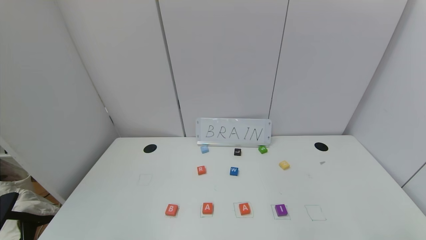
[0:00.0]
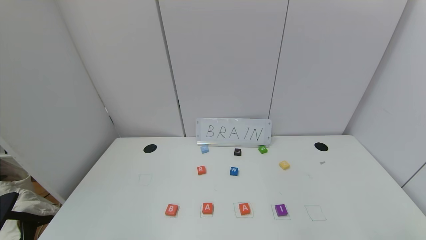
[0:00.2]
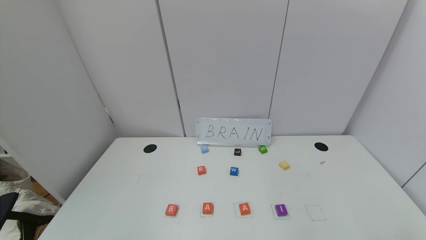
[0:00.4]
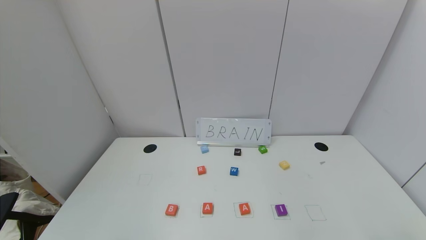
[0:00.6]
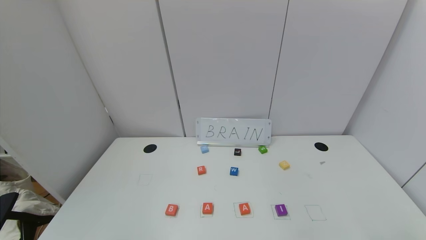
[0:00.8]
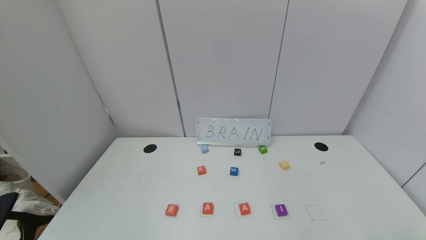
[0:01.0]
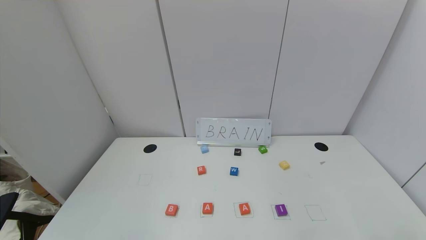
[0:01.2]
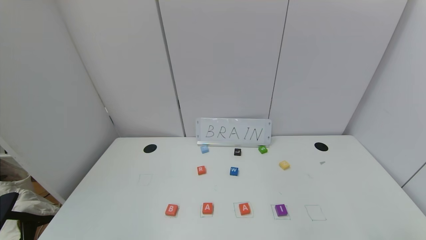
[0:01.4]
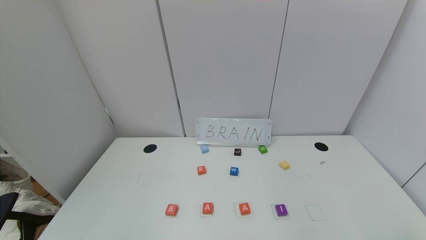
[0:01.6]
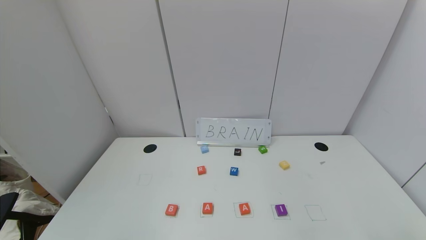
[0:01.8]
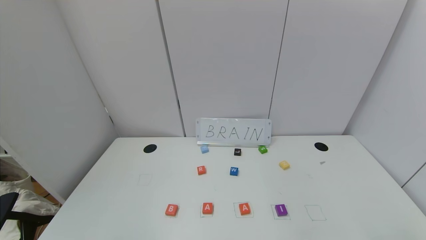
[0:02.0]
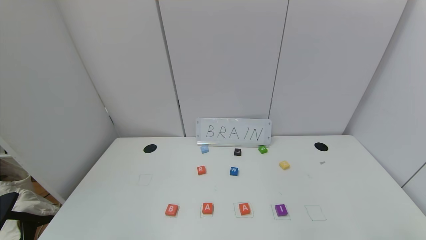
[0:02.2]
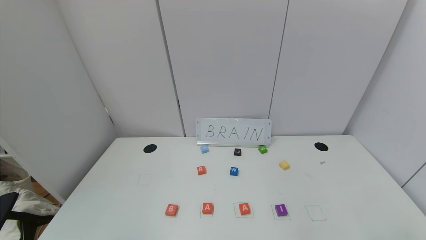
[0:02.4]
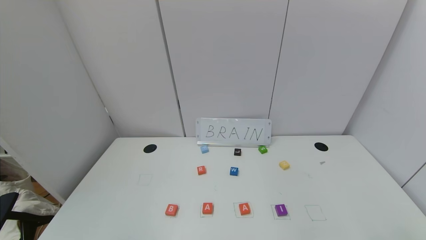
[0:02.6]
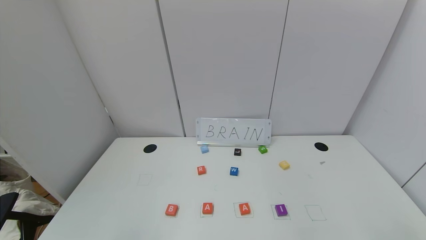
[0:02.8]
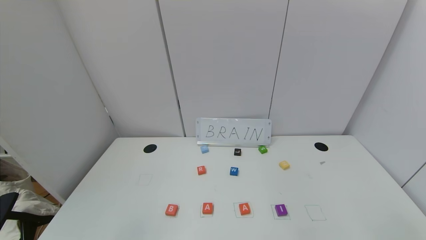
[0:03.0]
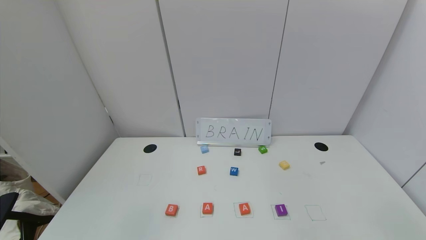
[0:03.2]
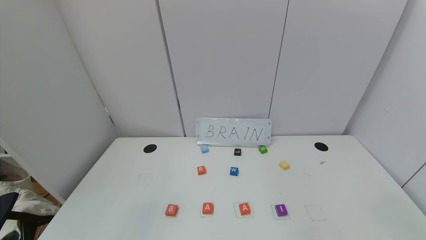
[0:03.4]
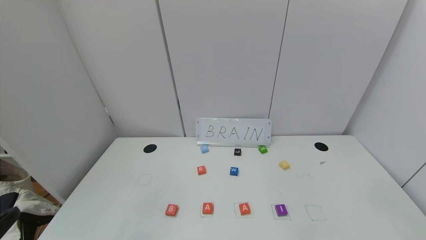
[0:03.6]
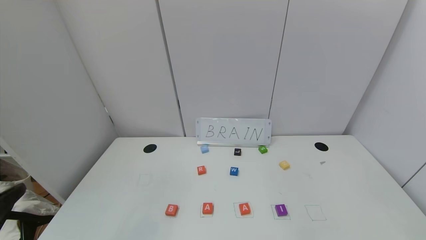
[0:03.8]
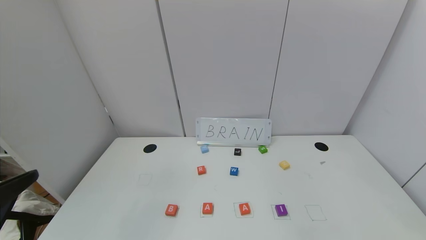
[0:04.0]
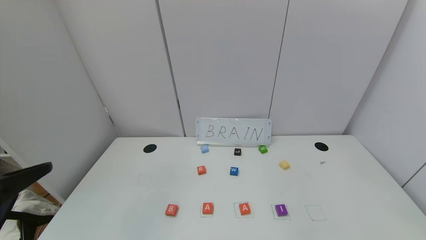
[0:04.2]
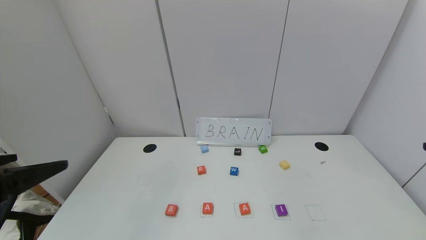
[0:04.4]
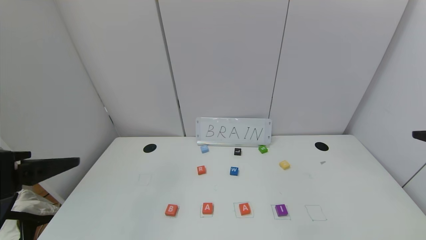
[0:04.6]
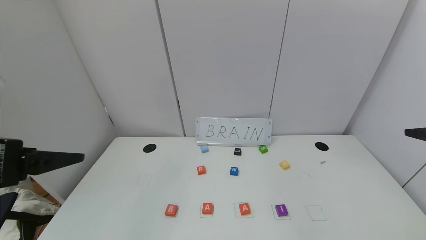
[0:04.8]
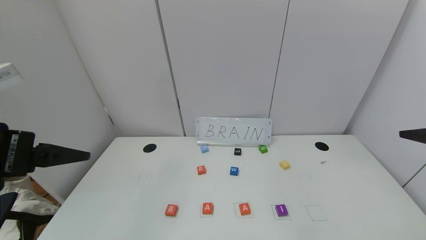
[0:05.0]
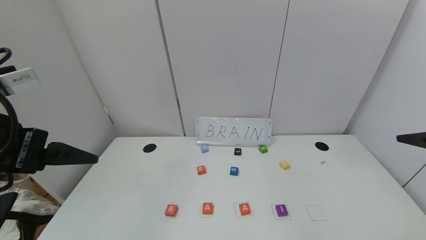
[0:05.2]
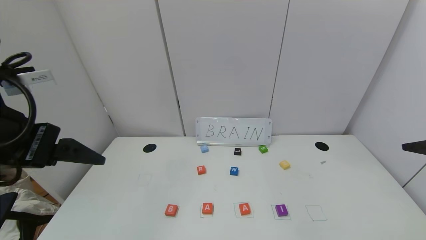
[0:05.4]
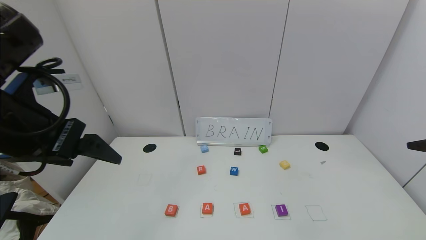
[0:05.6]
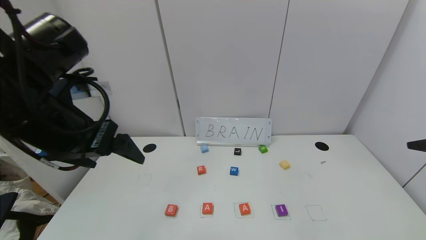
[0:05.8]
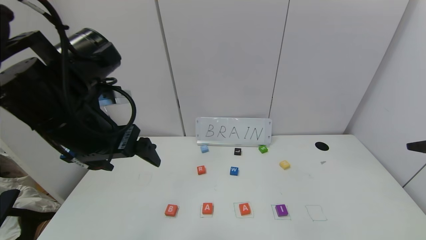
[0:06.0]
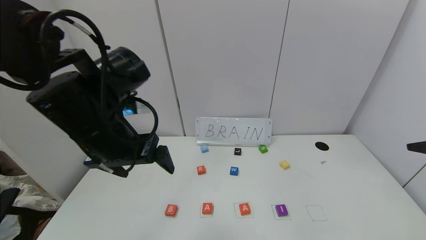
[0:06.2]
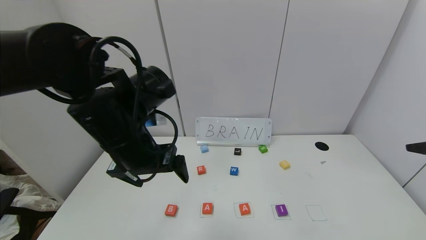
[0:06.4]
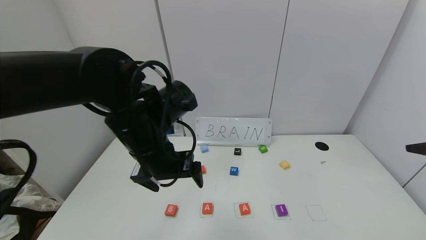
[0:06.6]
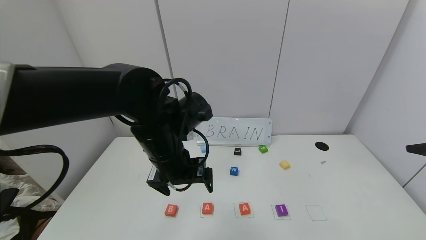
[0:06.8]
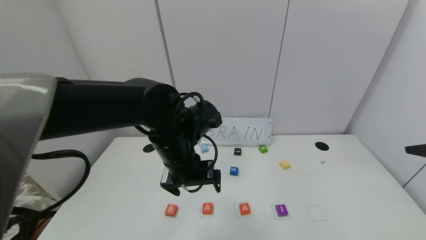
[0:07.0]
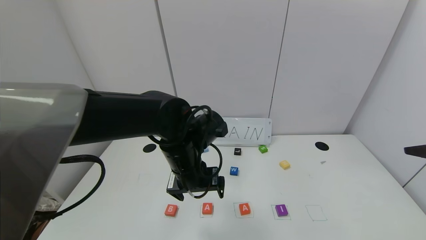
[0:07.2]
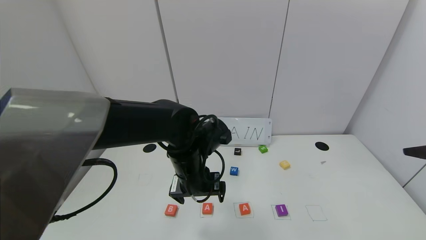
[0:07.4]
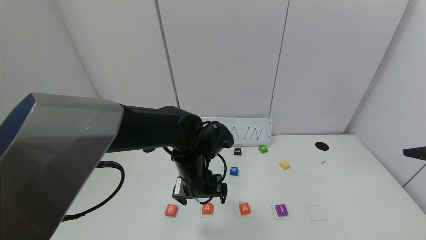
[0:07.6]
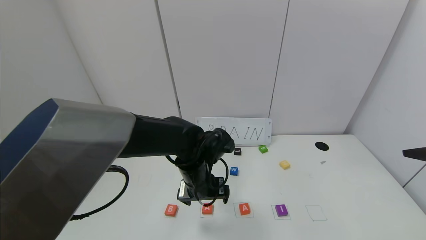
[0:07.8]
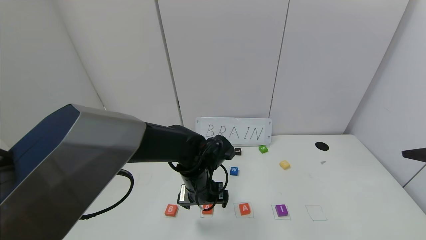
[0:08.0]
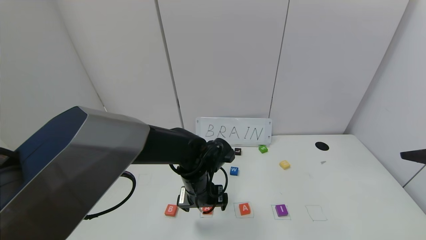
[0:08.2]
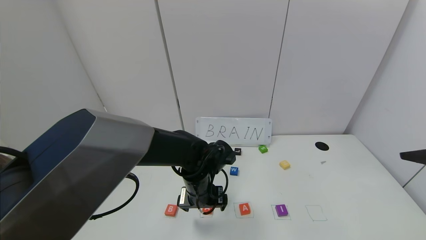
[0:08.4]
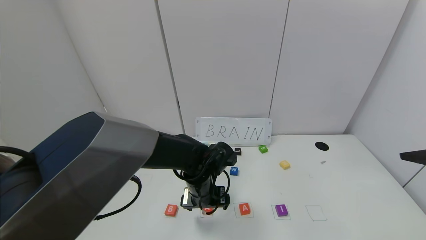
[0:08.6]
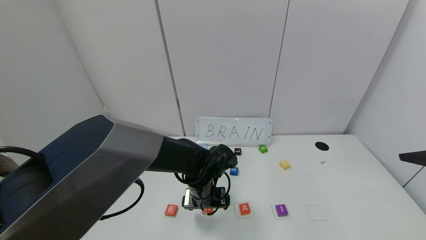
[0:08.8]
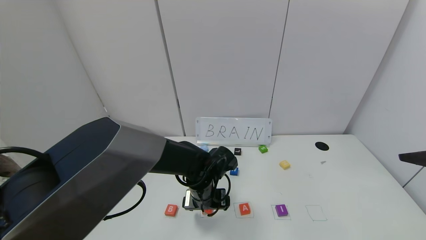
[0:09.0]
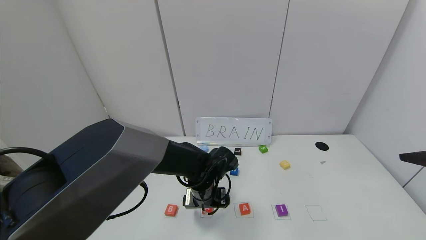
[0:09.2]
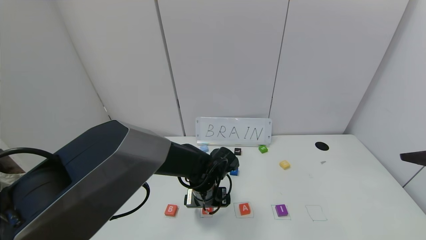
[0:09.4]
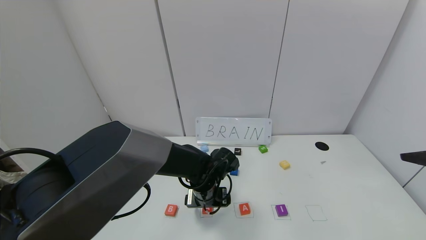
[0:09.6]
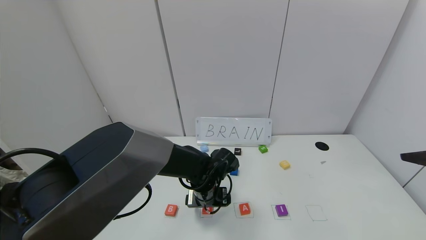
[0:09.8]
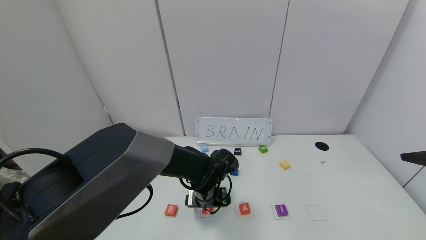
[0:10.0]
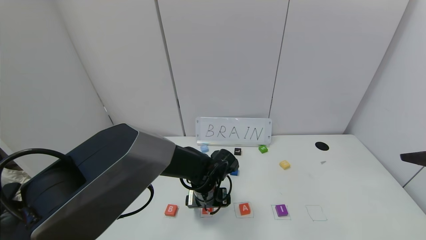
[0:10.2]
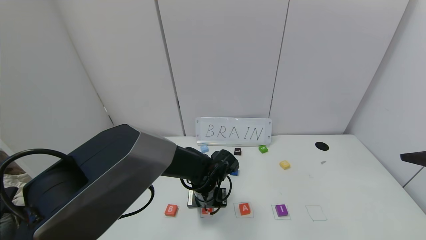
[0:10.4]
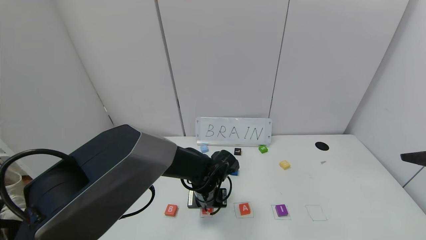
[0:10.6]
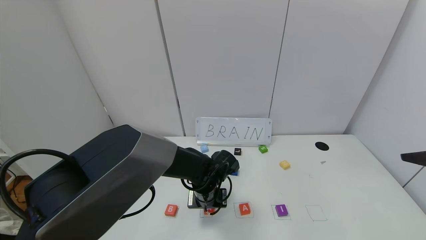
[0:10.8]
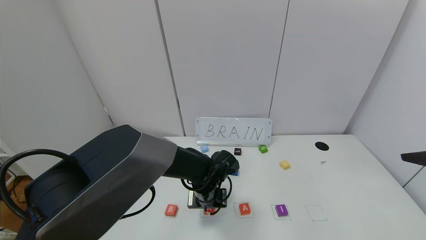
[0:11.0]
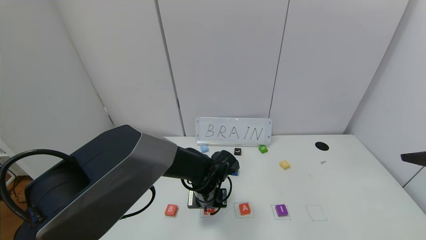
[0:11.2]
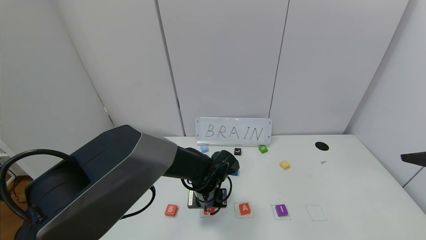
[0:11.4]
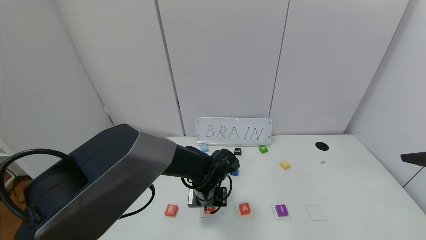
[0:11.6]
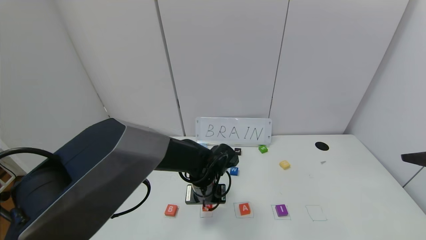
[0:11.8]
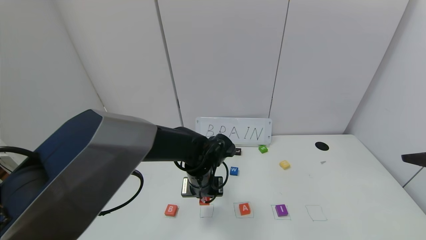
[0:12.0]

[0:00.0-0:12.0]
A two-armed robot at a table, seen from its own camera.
Task of the whole recording: use the gripper to find blocks with the letters b, a, a, and i on the table and arrange them into BAAI, then find r and N and turn the arranged baai into brian.
0:00.0 to 0:01.6: Neither gripper changes place.
0:03.0 to 0:04.4: The left gripper is displaced upward and forward by roughly 20 cm.
0:04.4 to 0:06.0: The left gripper goes about 15 cm forward and to the right.
0:06.0 to 0:07.6: The left gripper is displaced downward, to the right and forward by some 20 cm.
0:07.6 to 0:09.0: The left gripper travels downward by some 10 cm.
0:09.0 to 0:10.4: The left gripper closes.
0:10.4 to 0:12.0: The left gripper closes.

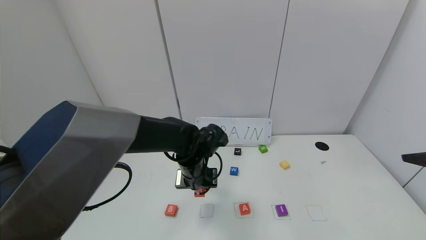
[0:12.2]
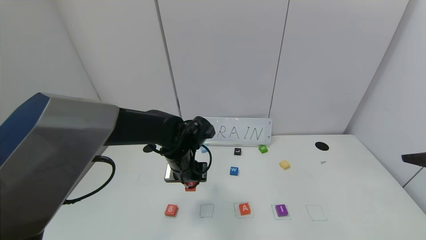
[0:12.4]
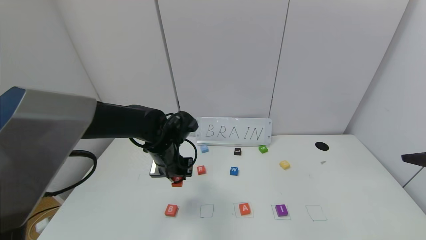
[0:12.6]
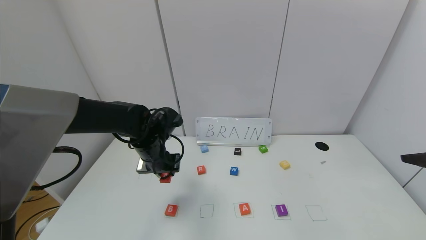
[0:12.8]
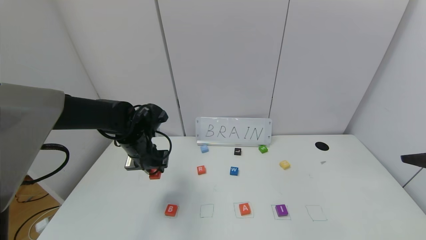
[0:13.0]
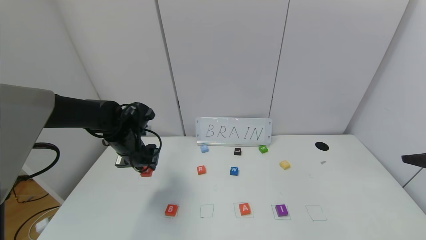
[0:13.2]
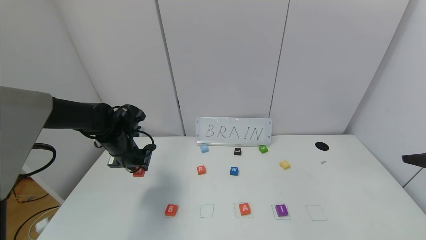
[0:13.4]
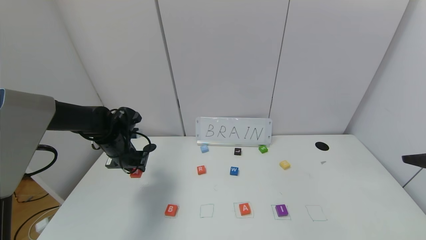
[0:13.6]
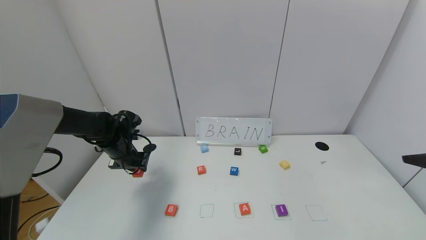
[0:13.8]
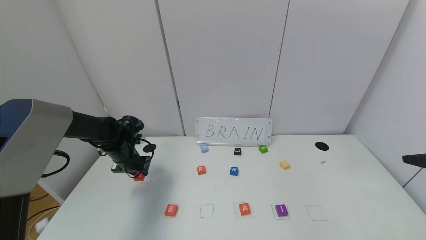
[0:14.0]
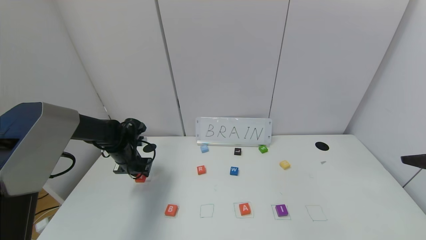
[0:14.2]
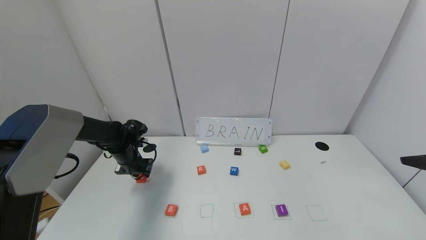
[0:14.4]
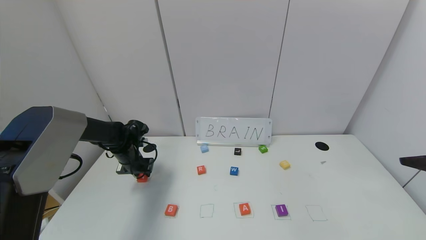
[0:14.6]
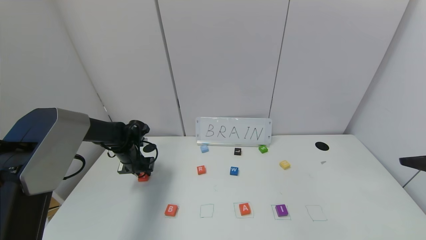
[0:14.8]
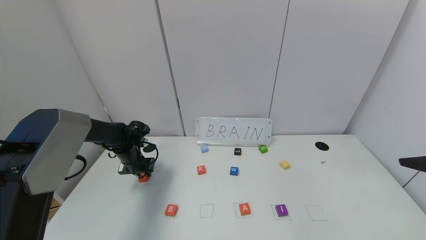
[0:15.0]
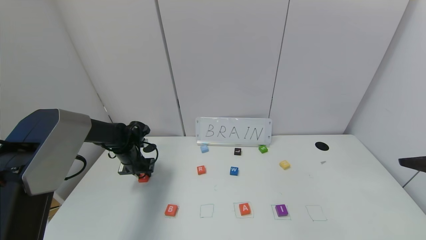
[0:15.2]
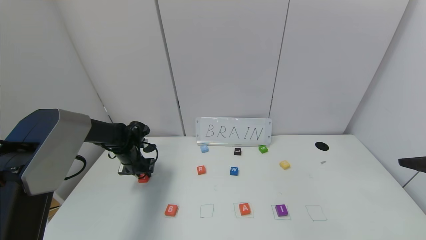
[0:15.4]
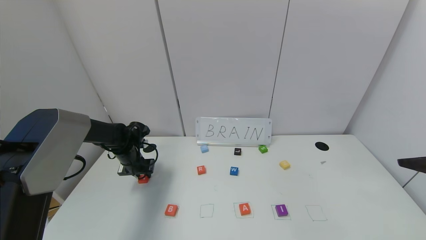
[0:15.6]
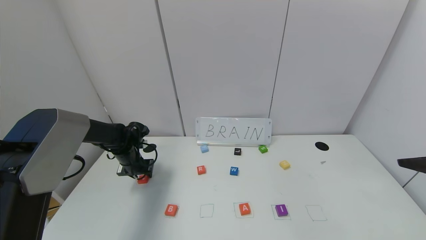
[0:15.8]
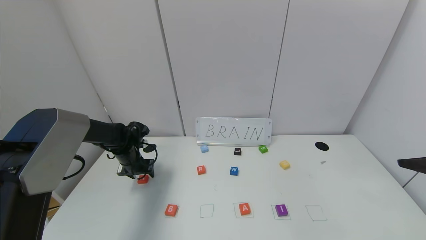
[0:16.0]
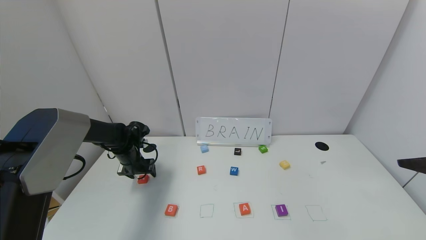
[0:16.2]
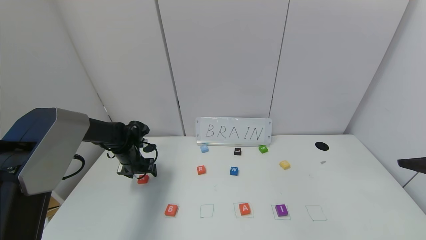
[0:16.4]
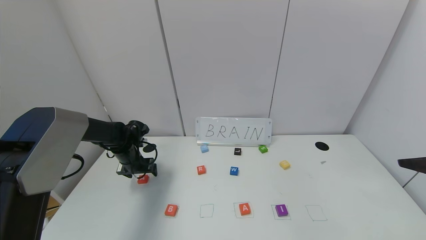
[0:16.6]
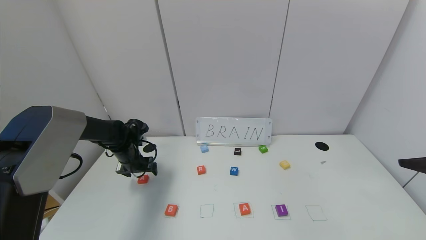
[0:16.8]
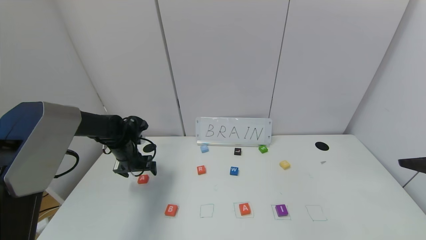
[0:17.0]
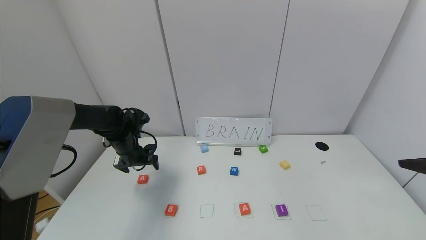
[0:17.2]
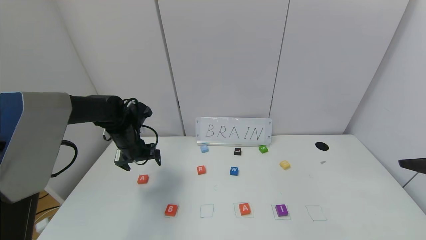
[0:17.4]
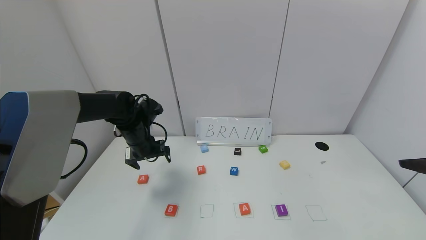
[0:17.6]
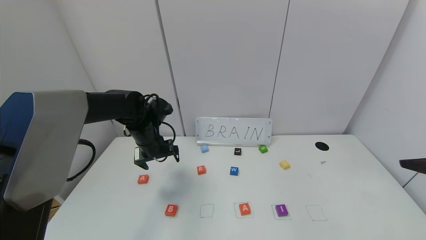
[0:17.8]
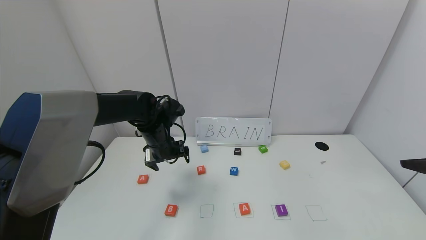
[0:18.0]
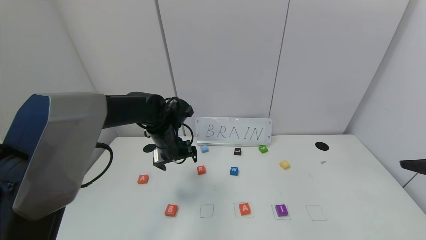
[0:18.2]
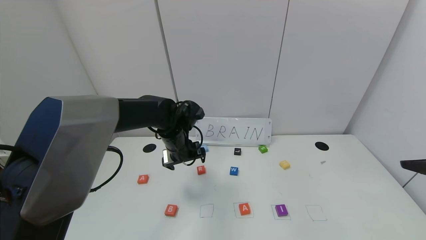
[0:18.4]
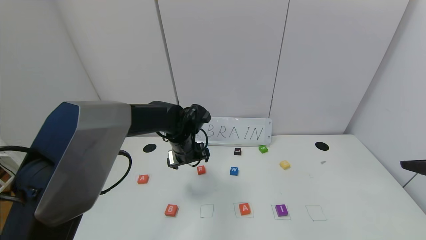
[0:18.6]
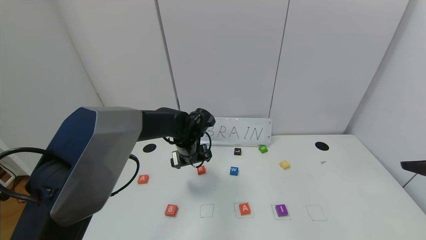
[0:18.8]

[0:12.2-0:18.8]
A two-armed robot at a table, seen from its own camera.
Task of the whole recording: use the gripper to find blocks with the letters b, a, a, and i on the table and arrange them into BAAI, then find r and N and turn the arranged baai into brian.
Step, 0:12.2 to 0:16.4: Move the block A out of the second location.
0:12.2 to 0:13.8: The left gripper heads to the left, covering approximately 20 cm.
0:13.8 to 0:15.4: The left gripper goes about 5 cm downward.
0:15.4 to 0:17.2: The left gripper moves upward, some 5 cm, and opens its fingers.
0:17.2 to 0:18.8: The left gripper shifts some 20 cm to the right.
